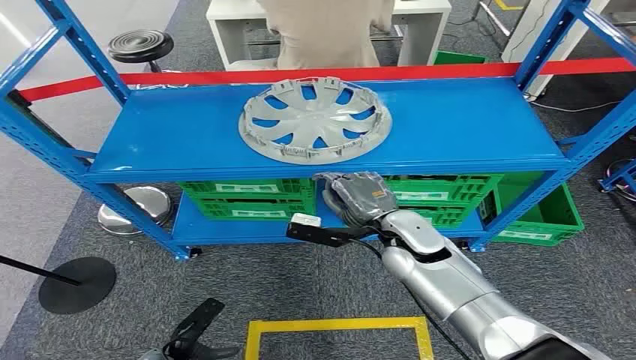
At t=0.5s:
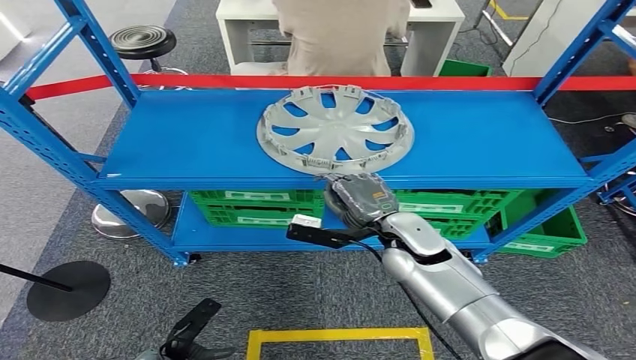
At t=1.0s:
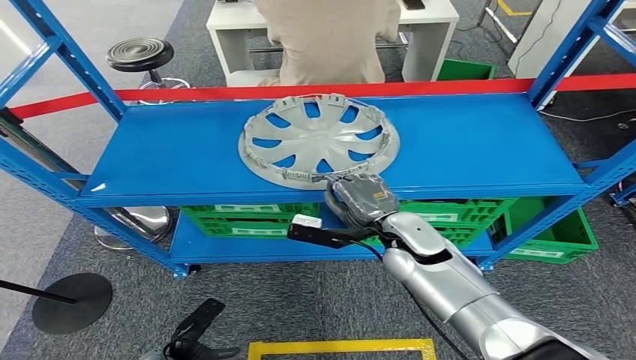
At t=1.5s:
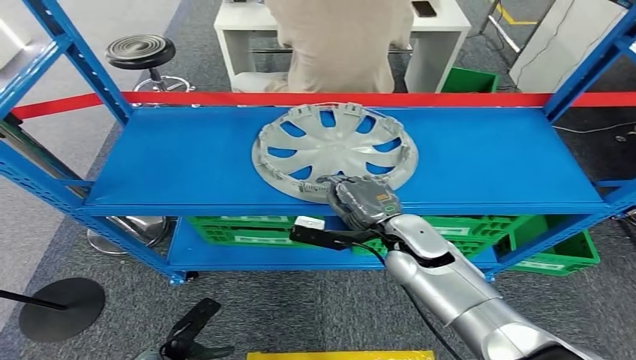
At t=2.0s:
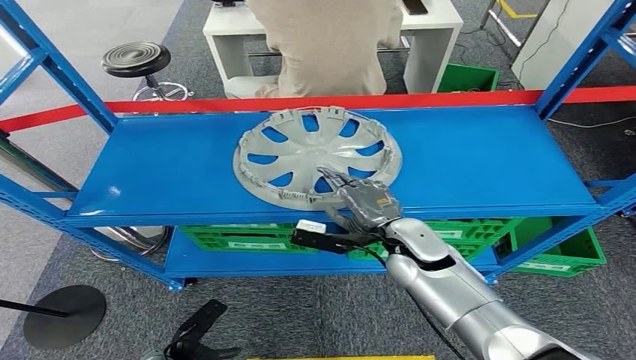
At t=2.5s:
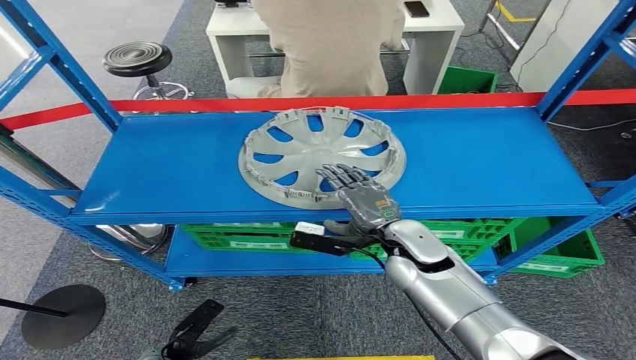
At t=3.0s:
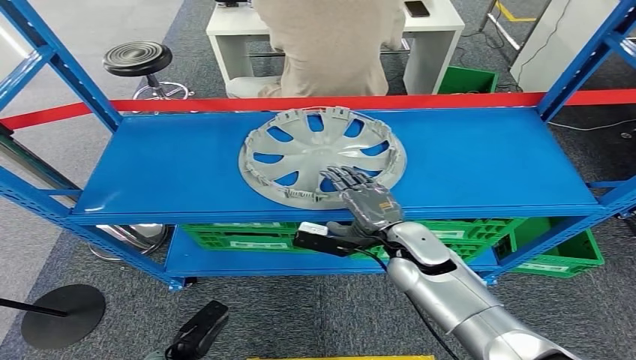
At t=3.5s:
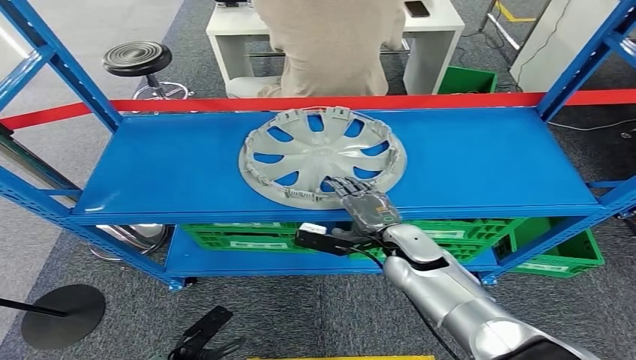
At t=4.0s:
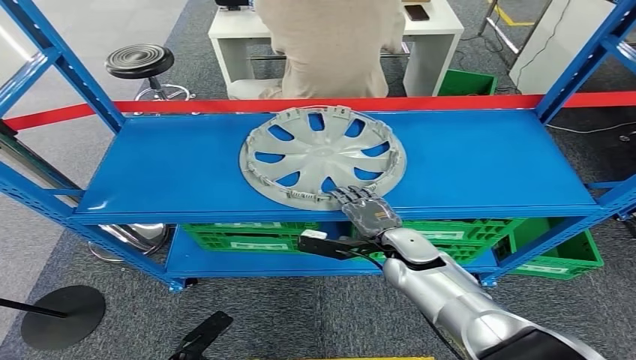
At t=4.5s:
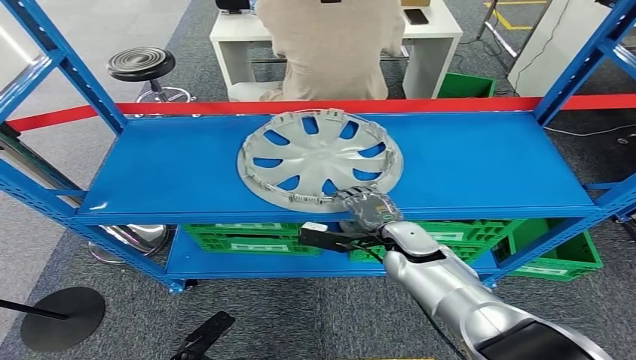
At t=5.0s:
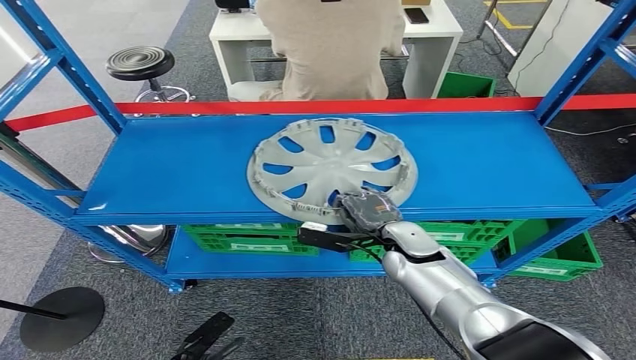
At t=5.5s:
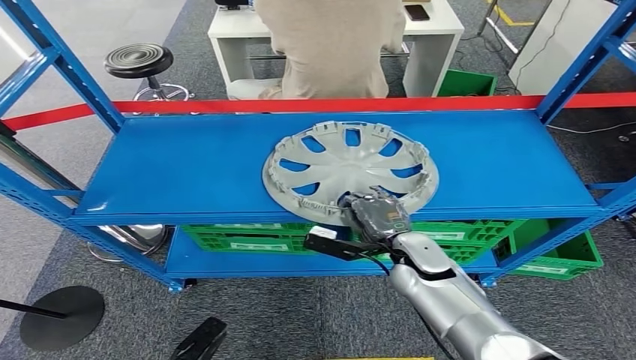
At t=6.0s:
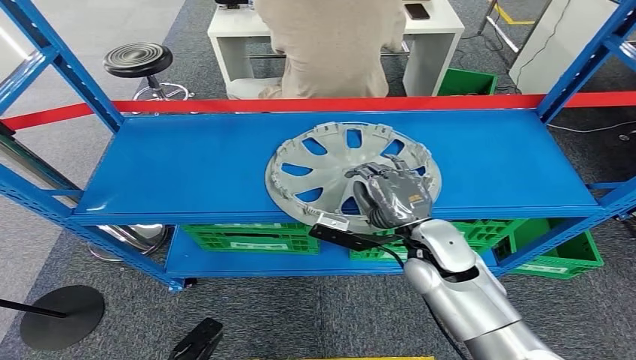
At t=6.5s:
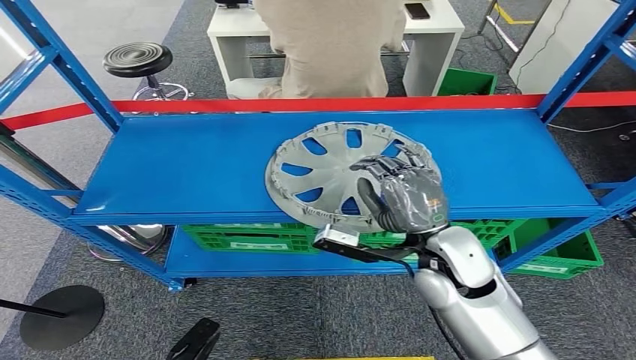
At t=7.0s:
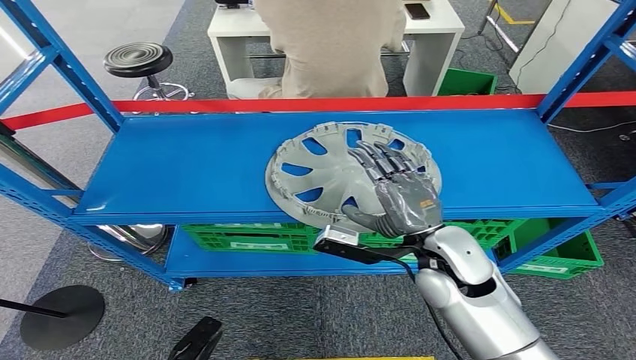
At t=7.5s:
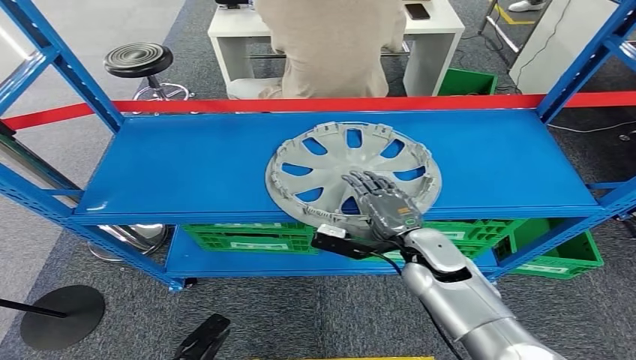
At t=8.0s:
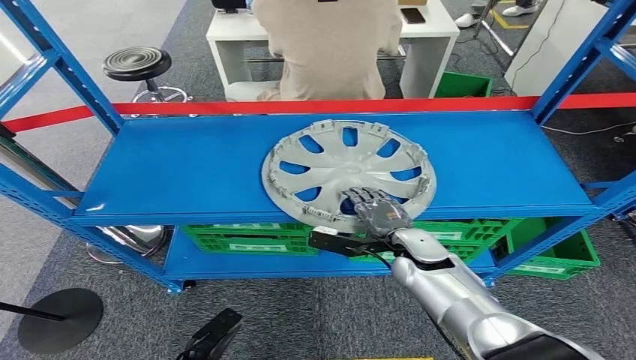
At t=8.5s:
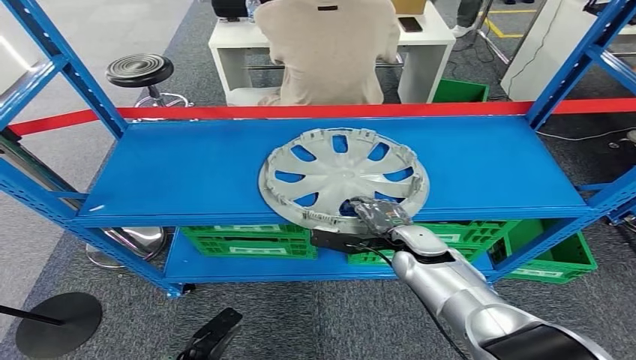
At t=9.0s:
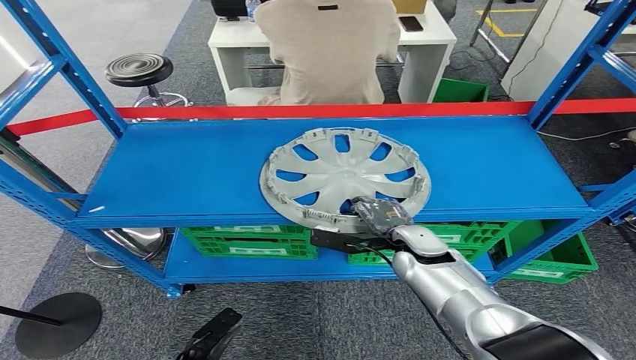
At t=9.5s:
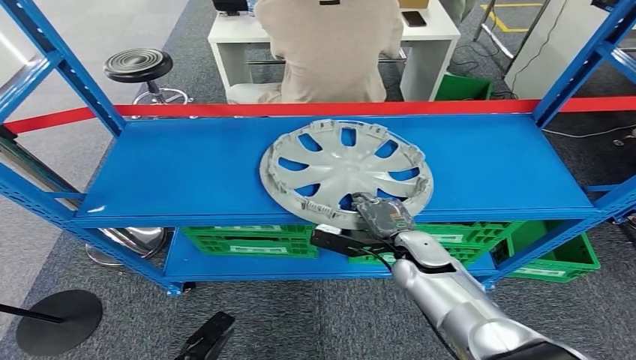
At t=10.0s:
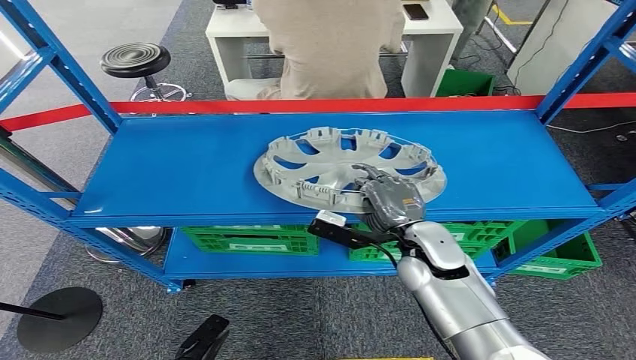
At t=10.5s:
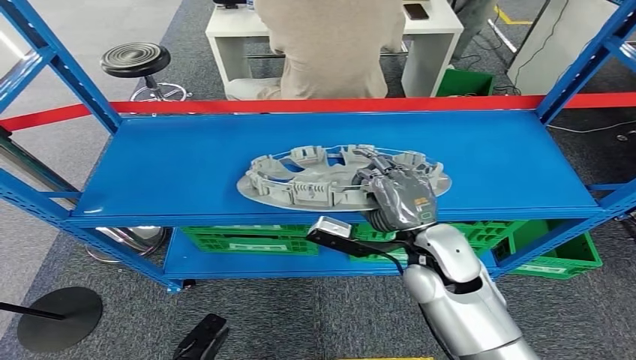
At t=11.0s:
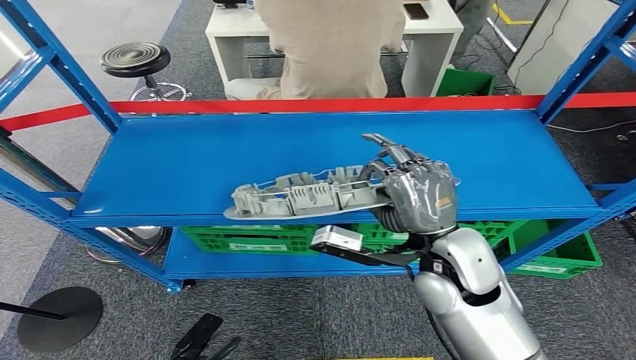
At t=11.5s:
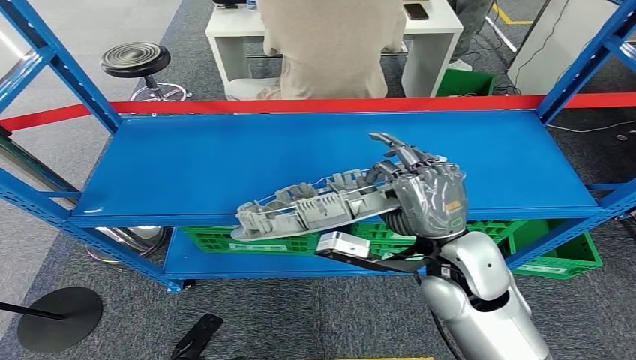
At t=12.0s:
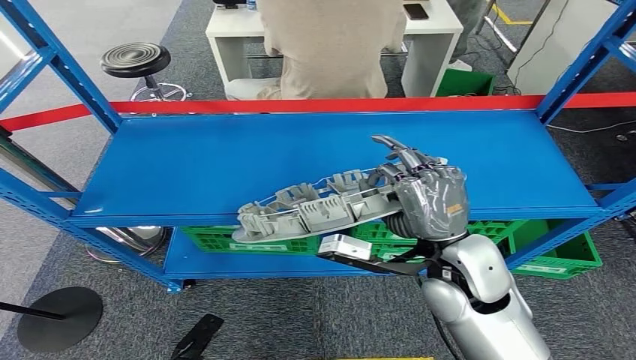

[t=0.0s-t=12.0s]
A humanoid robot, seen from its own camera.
Step, t=0.0s to t=11.0s: Pick up the small component from the shelf.
t=4.0s to t=6.0s: The right hand travels upward by some 10 cm.
t=8.0s to t=10.0s: The right hand travels upward by some 5 cm.
t=10.0s to t=12.0s: The right hand moves upward and backward, approximately 10 cm.

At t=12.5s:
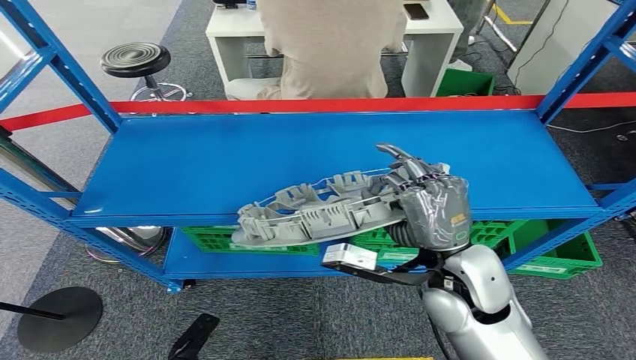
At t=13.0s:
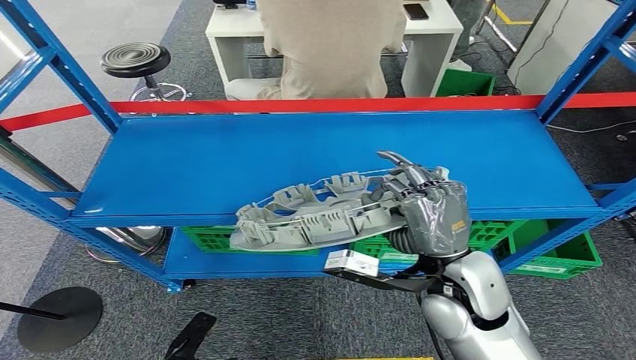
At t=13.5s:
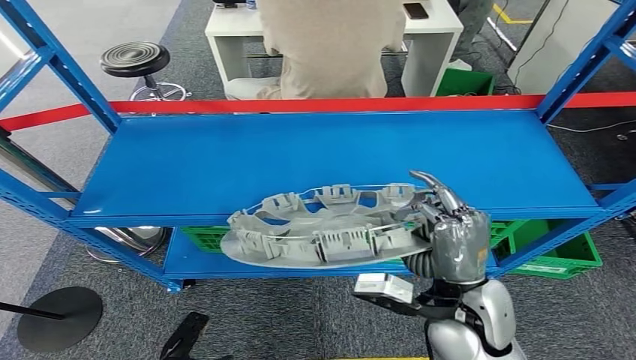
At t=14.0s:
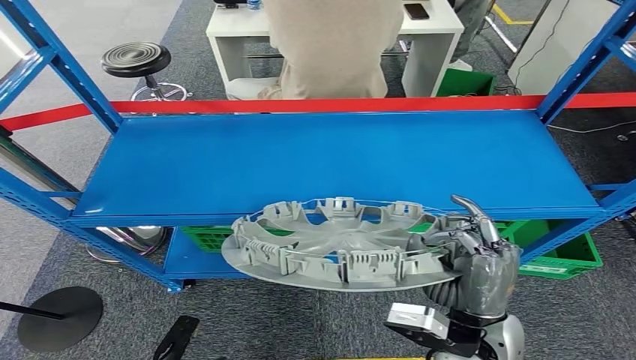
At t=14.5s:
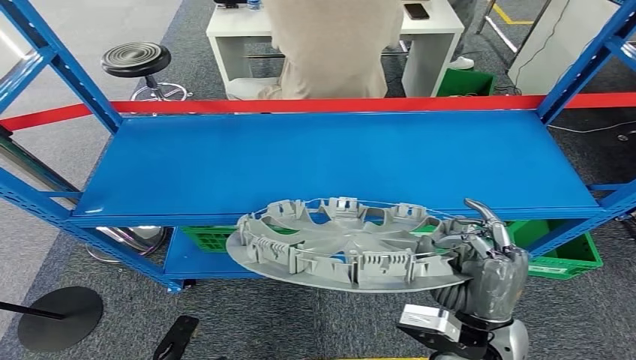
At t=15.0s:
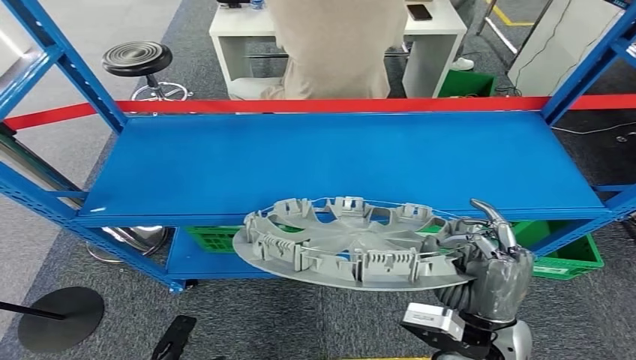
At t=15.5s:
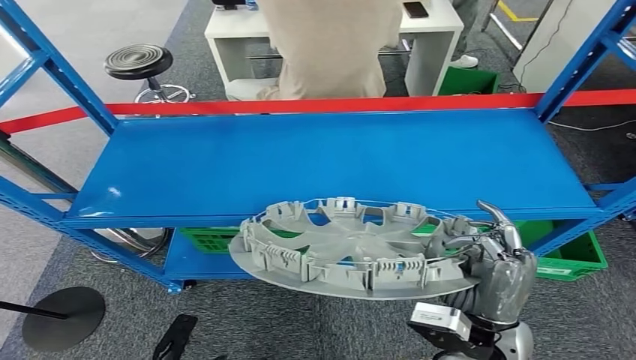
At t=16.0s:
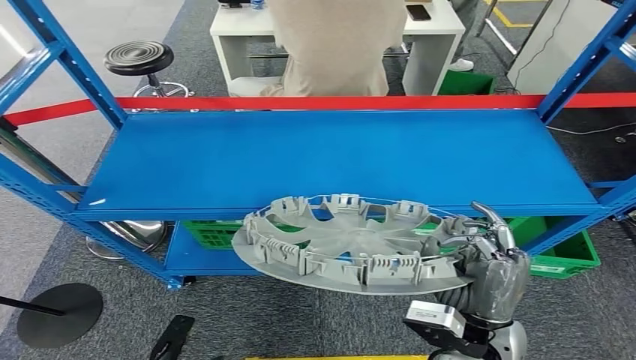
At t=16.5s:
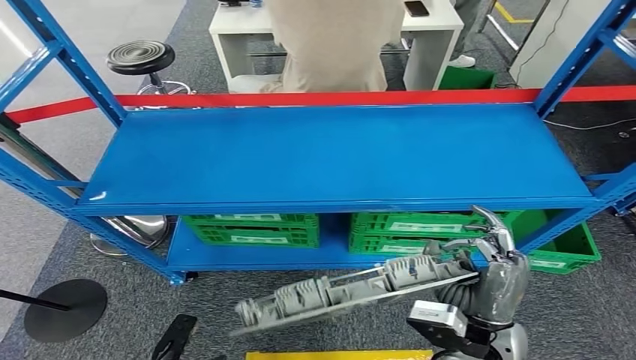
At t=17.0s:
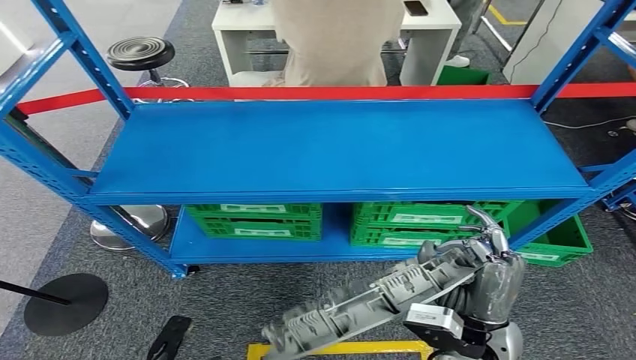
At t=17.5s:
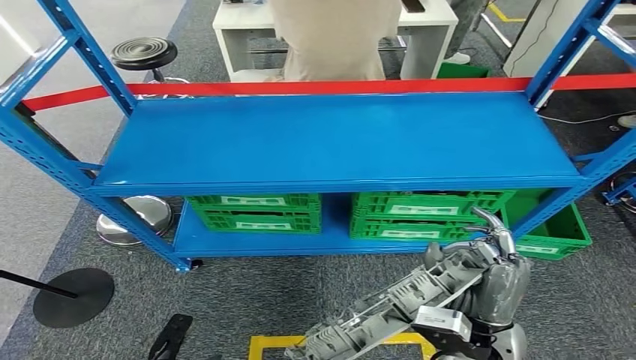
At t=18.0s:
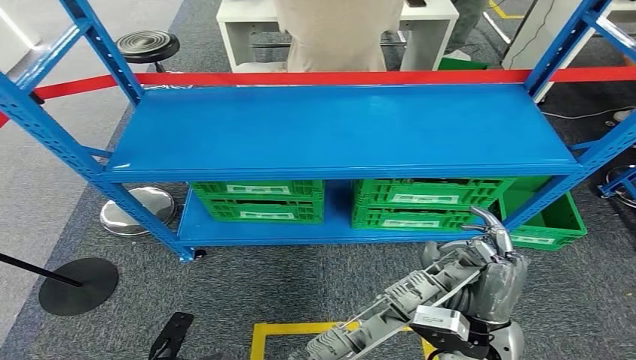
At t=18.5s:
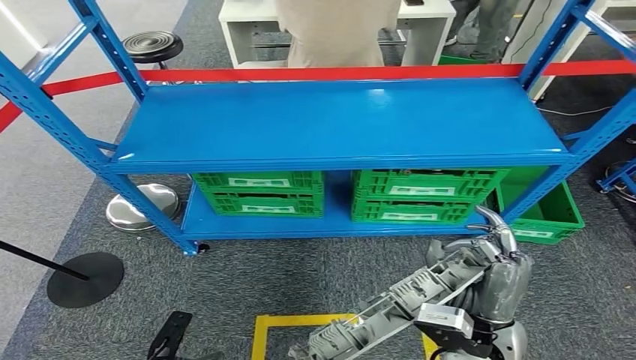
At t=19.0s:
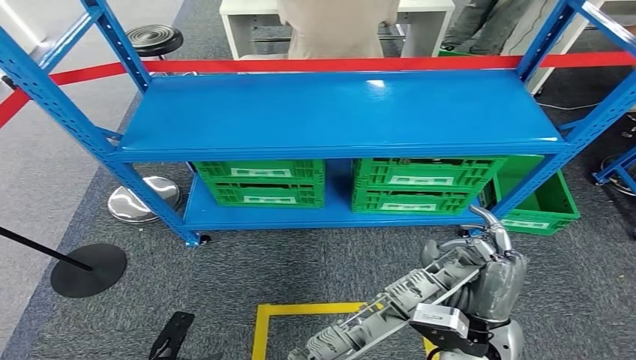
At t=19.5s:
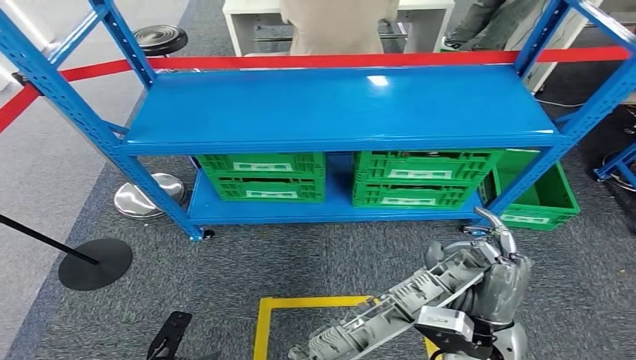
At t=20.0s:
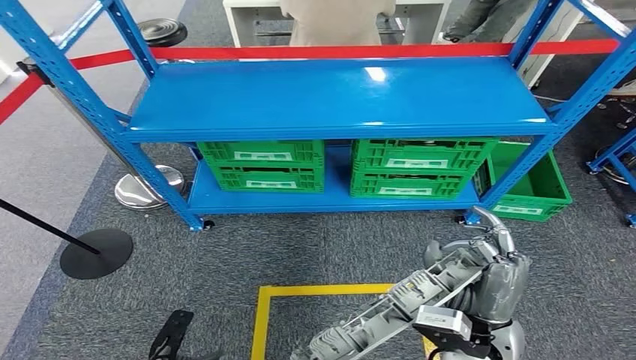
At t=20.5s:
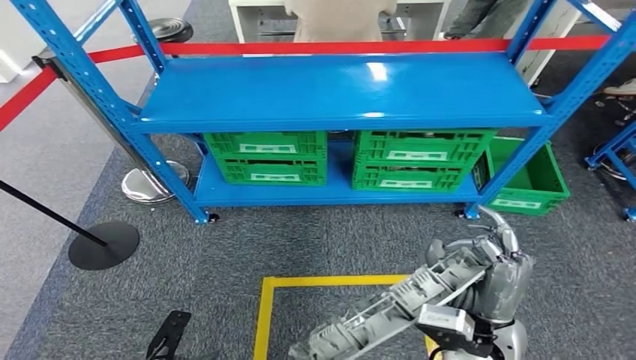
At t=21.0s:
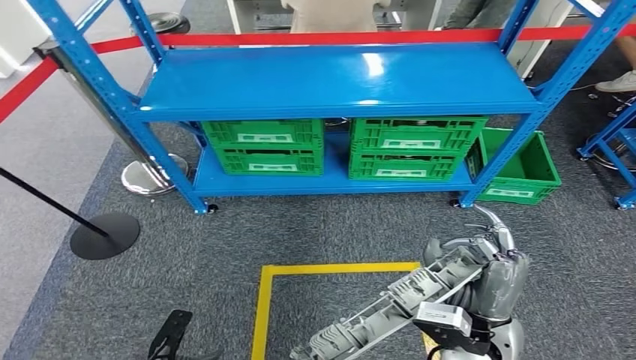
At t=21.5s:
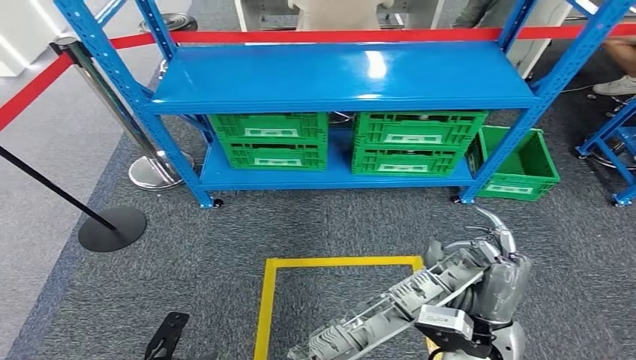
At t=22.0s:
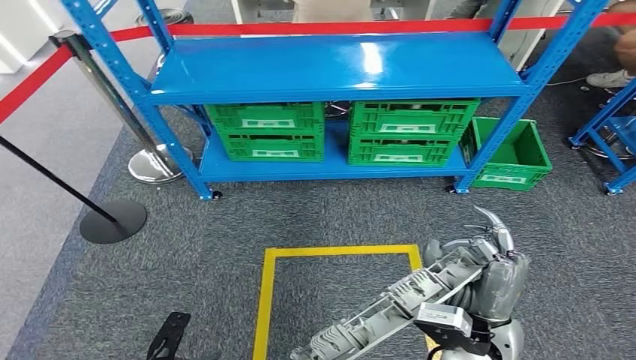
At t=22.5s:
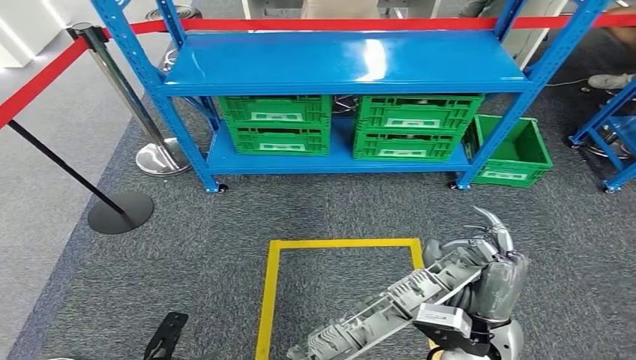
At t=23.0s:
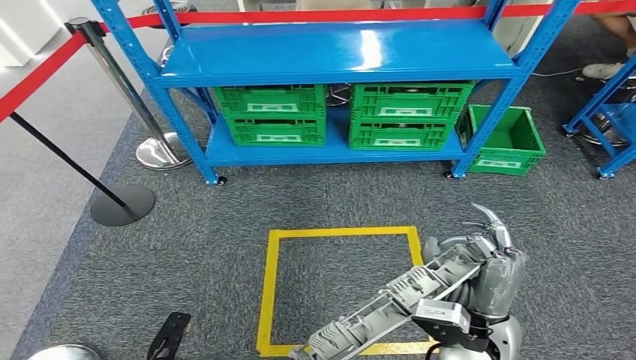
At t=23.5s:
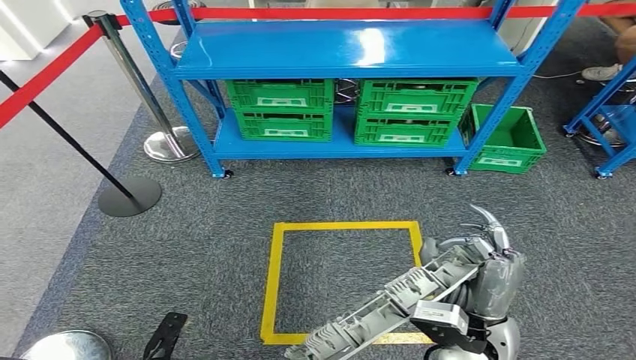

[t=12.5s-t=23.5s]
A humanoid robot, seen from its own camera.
t=12.5s to t=14.5s: The right hand moves backward and downward, roughly 10 cm.
t=14.5s to t=16.0s: Both hands stay put.
